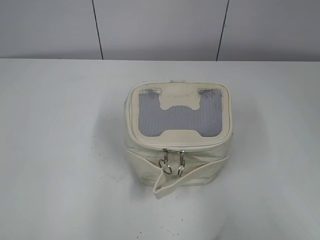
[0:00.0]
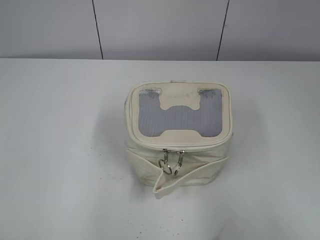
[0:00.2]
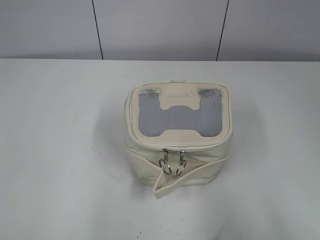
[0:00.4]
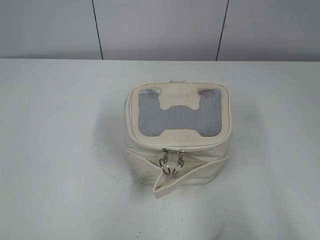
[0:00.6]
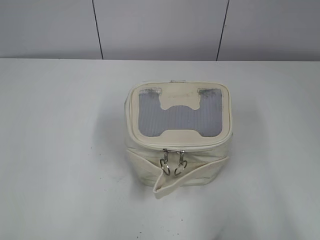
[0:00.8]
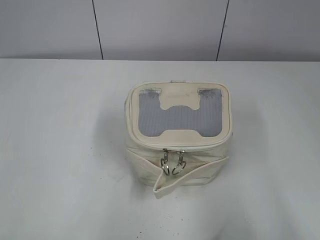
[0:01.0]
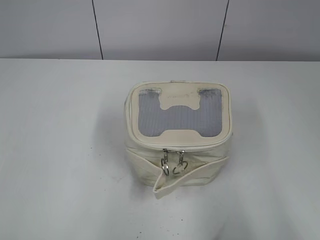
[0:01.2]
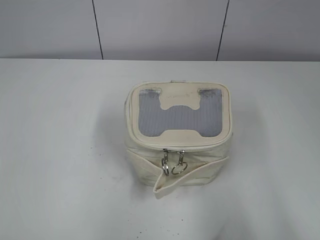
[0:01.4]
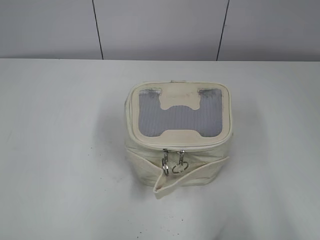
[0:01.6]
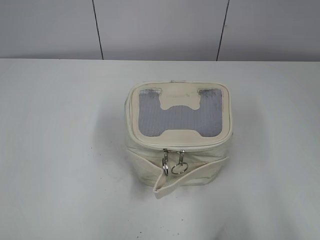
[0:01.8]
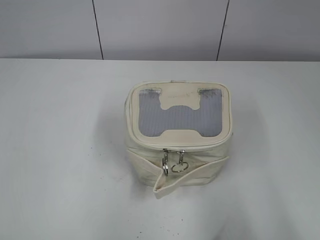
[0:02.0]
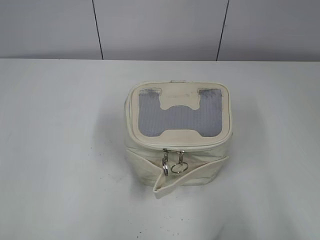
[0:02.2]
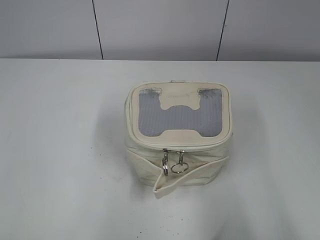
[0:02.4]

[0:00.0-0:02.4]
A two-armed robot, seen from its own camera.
0:01.2 to 0:02.4: The two grippers keep their place.
